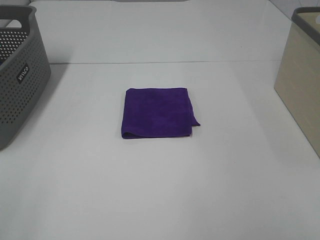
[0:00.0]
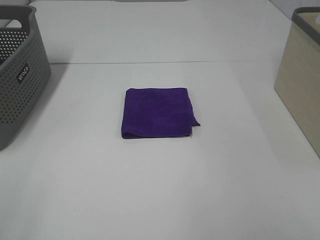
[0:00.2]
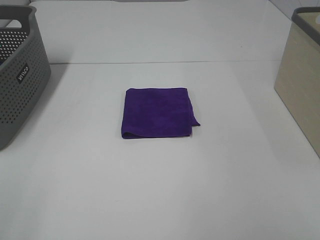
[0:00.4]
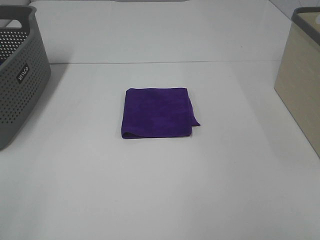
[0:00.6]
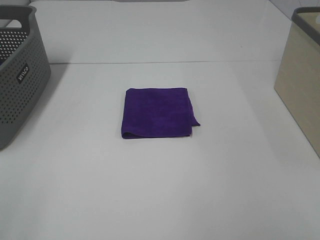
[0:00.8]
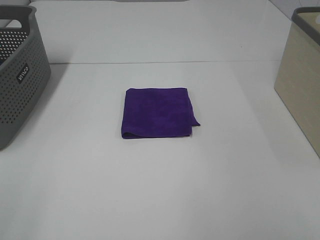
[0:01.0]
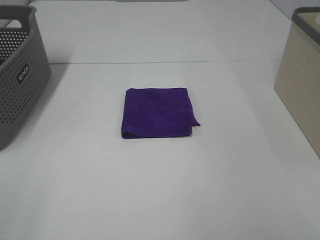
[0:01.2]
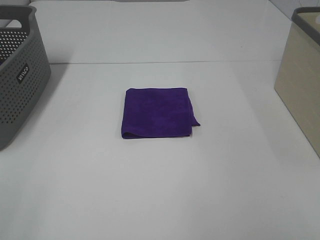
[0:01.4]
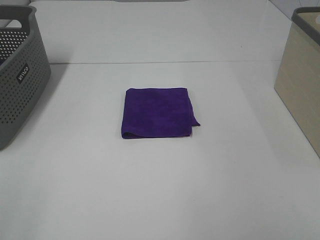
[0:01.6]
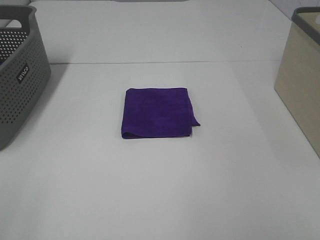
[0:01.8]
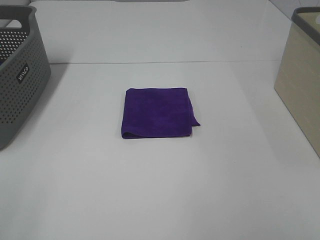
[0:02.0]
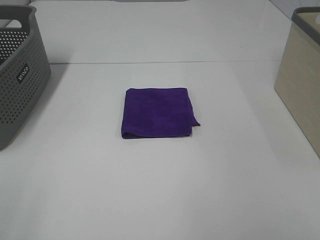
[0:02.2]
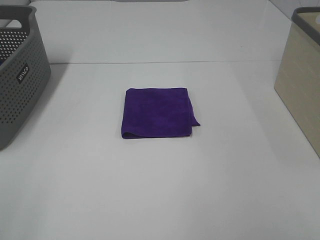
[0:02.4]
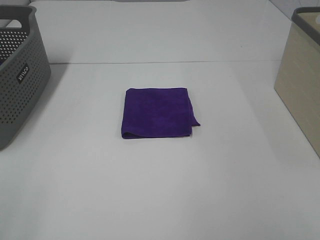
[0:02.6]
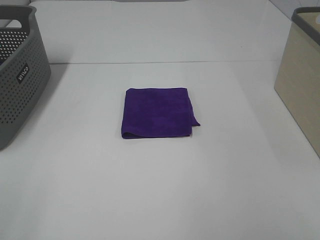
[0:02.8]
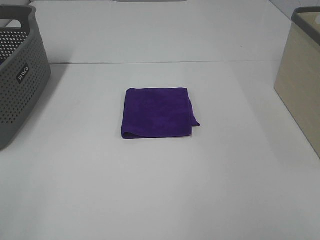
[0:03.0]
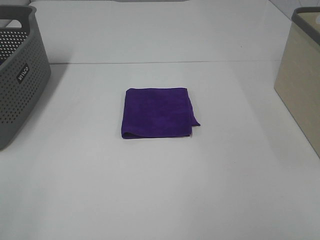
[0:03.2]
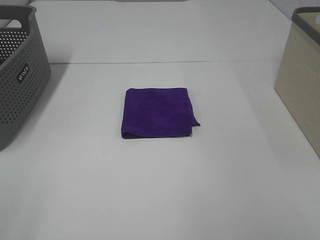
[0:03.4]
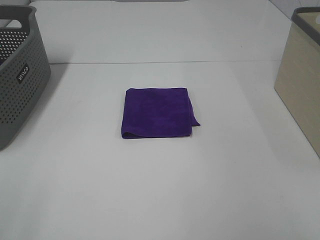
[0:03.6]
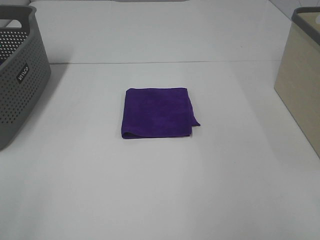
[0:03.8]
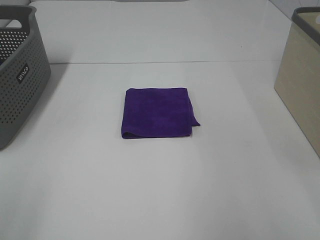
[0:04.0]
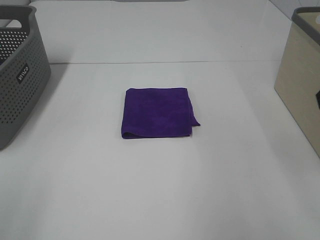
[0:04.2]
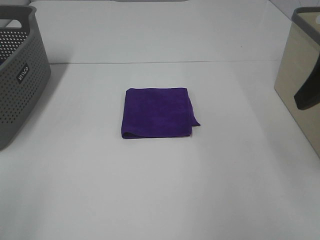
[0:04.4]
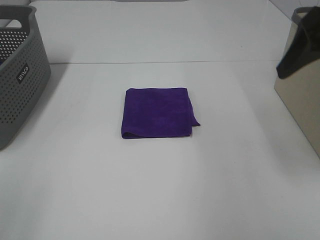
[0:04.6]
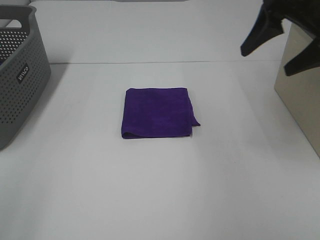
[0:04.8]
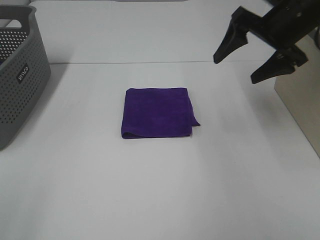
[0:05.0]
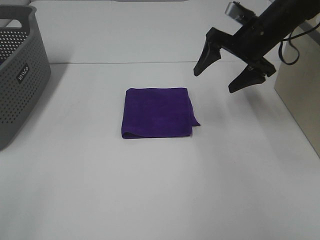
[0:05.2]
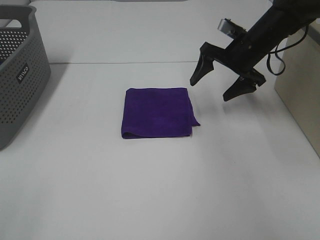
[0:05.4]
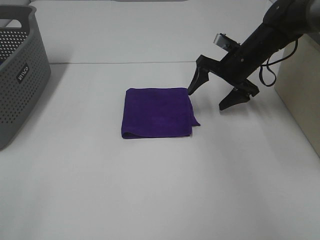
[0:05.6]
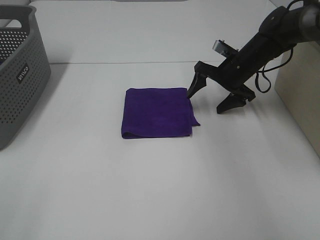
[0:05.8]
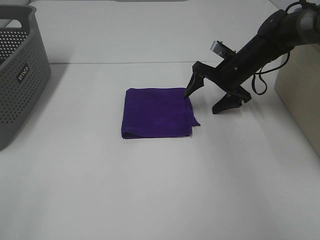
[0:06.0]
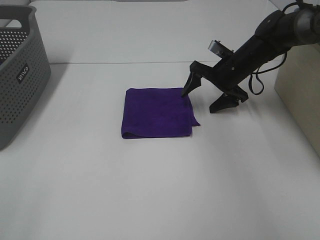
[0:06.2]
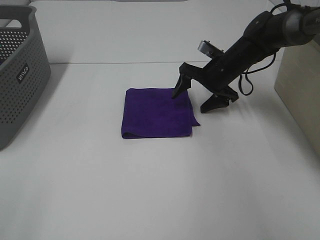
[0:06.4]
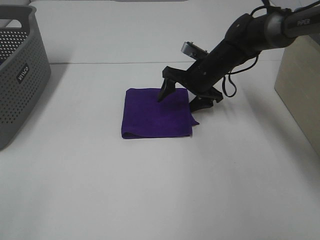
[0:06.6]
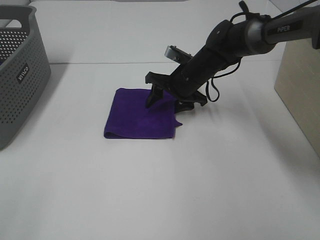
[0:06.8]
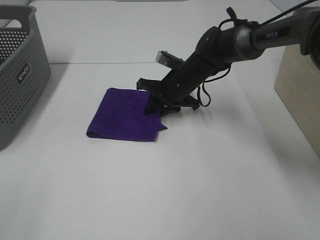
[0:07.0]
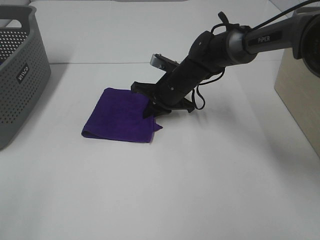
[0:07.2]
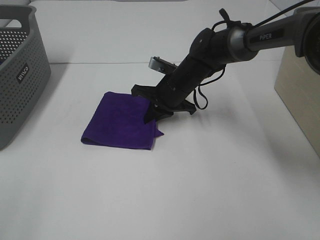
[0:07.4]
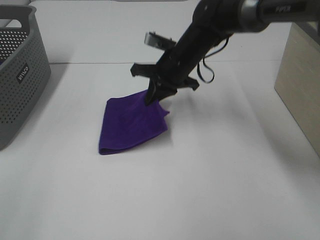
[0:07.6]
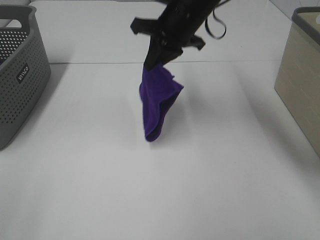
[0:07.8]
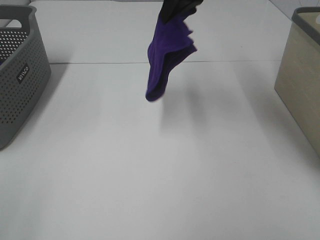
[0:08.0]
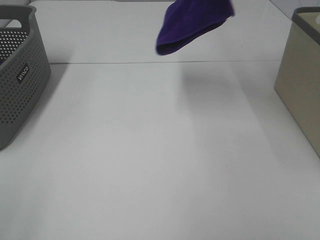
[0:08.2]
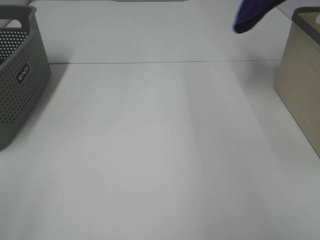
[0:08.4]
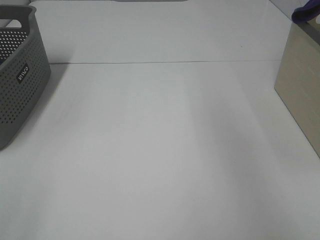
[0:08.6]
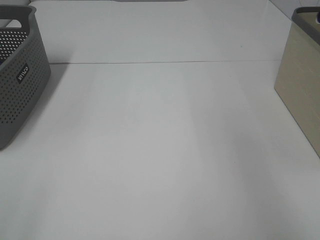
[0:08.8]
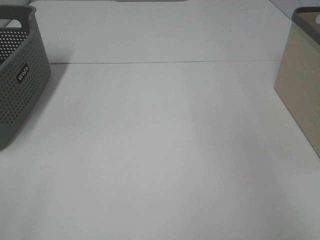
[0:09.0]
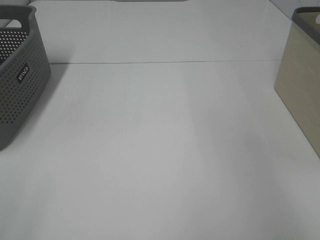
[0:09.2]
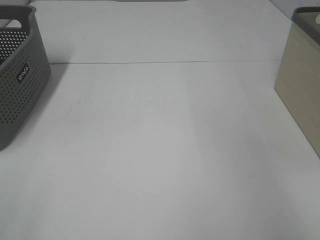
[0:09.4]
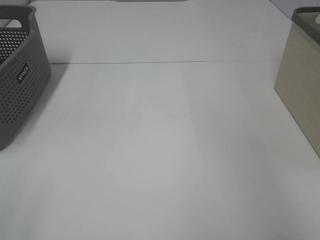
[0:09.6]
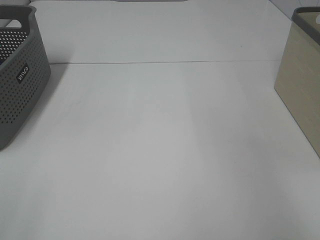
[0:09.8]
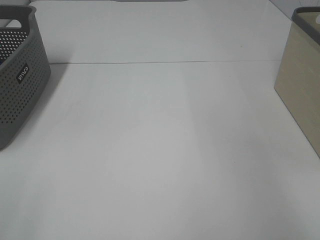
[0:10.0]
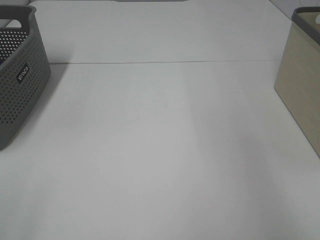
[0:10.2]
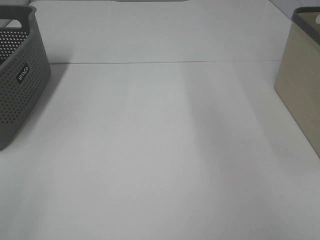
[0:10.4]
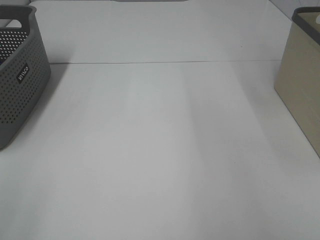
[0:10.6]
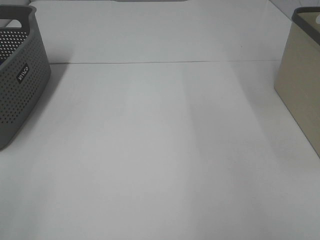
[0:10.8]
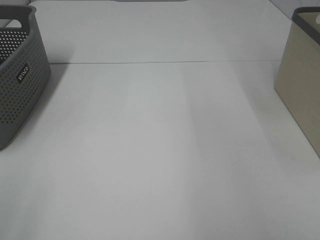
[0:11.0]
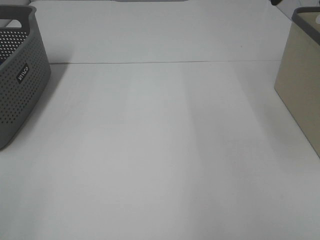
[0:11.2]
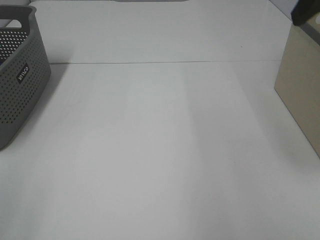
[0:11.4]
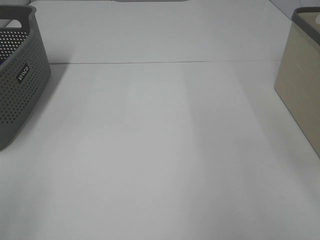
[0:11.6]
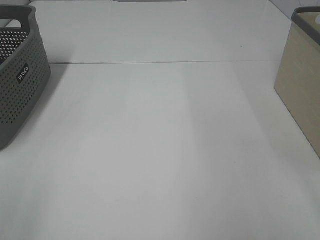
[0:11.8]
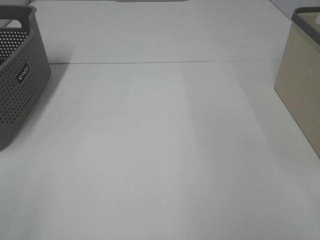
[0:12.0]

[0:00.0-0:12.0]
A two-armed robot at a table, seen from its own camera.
Step, 0:00.0 to 0:07.2: Right hand: grab the folded purple towel.
Step, 0:07.4 to 0:09.8: Right hand: place the purple towel in right basket.
0:00.0 to 0:03.0: Neither gripper changes place.
0:03.0 to 0:04.4: The right gripper goes about 20 cm forward.
0:04.4 to 0:06.0: The right gripper shifts roughly 35 cm forward and downward.
0:06.0 to 0:07.6: The right gripper moves to the left and upward, about 15 cm, and closes up.
0:07.6 to 0:09.0: The right gripper is displaced to the right and upward by about 50 cm.

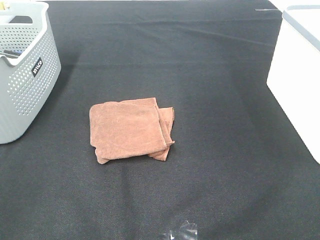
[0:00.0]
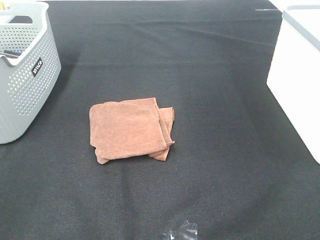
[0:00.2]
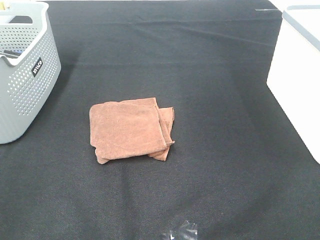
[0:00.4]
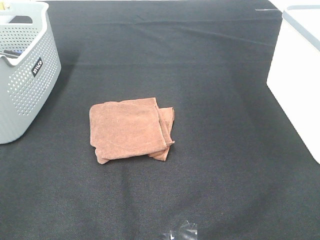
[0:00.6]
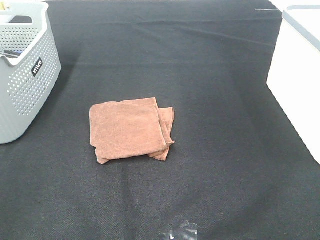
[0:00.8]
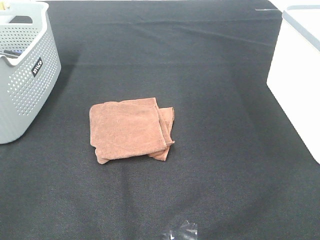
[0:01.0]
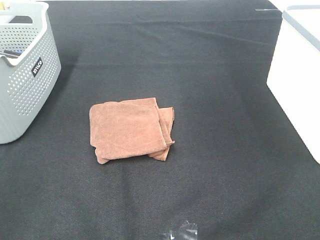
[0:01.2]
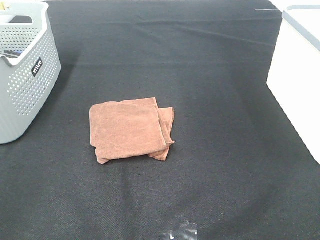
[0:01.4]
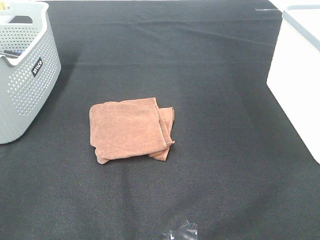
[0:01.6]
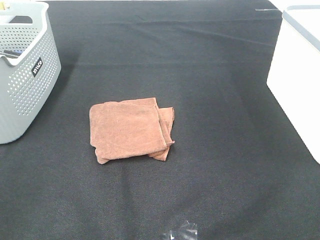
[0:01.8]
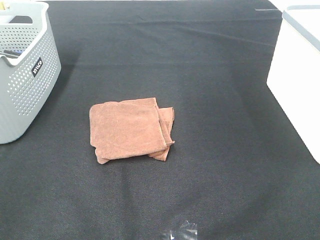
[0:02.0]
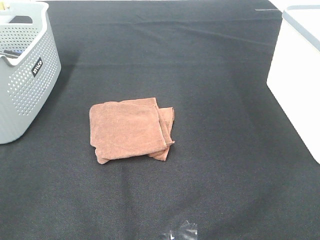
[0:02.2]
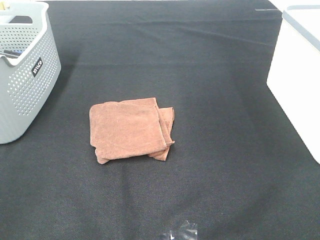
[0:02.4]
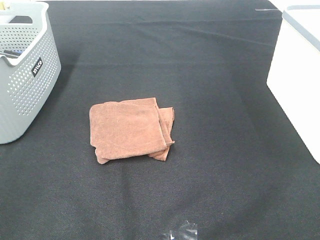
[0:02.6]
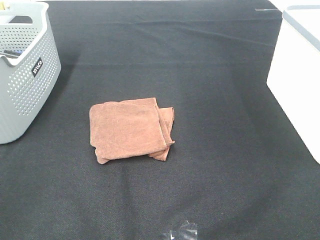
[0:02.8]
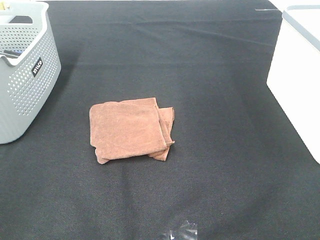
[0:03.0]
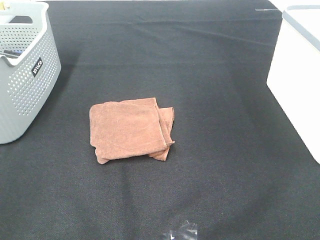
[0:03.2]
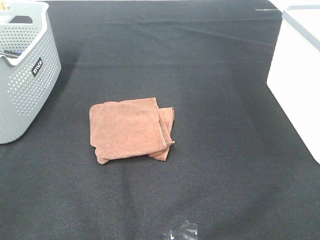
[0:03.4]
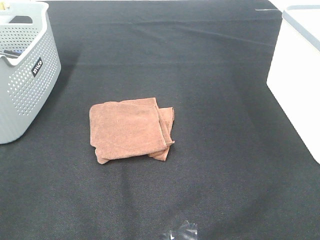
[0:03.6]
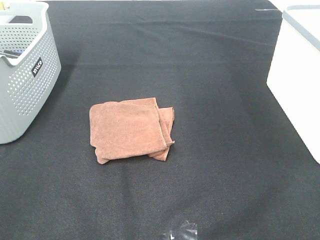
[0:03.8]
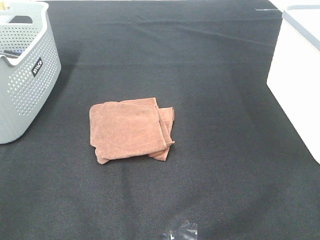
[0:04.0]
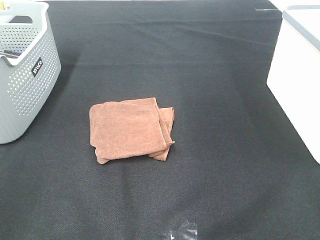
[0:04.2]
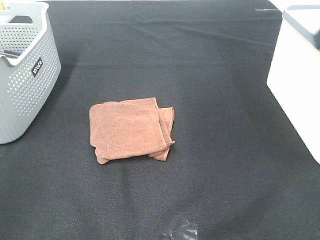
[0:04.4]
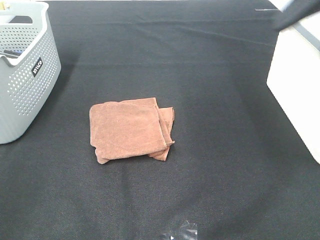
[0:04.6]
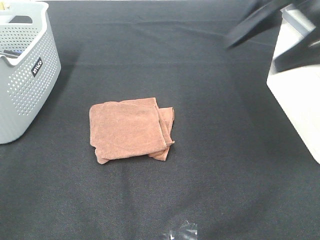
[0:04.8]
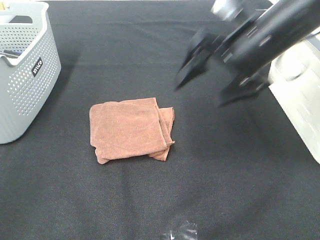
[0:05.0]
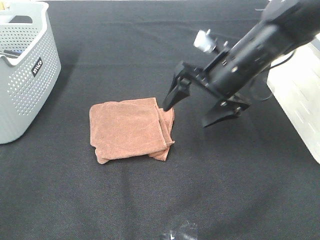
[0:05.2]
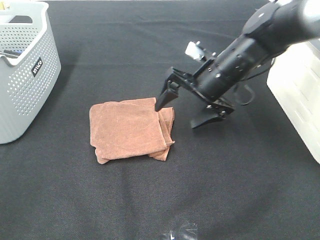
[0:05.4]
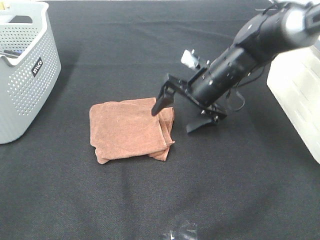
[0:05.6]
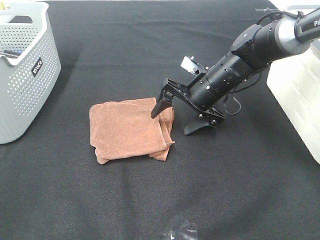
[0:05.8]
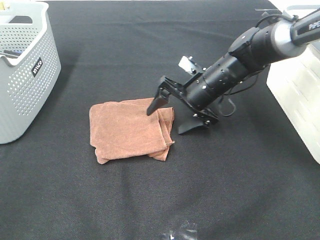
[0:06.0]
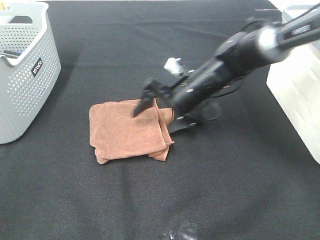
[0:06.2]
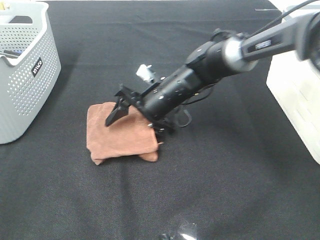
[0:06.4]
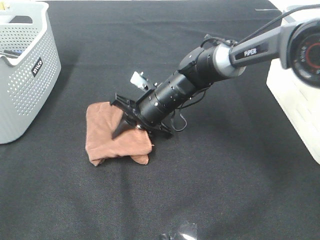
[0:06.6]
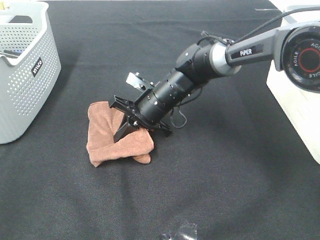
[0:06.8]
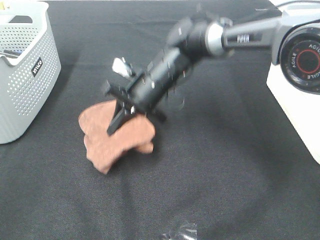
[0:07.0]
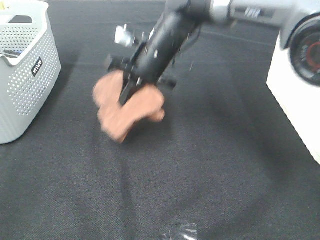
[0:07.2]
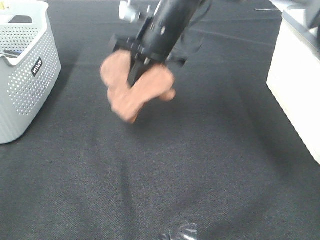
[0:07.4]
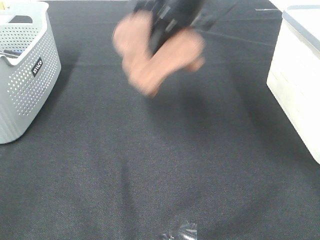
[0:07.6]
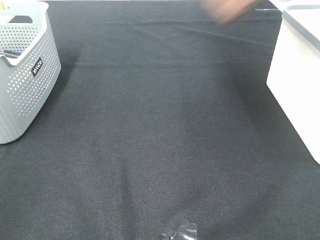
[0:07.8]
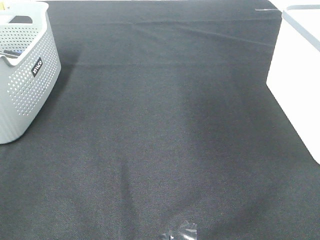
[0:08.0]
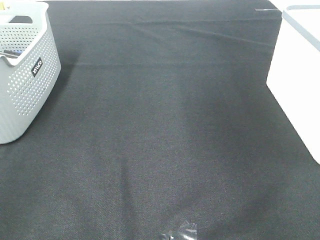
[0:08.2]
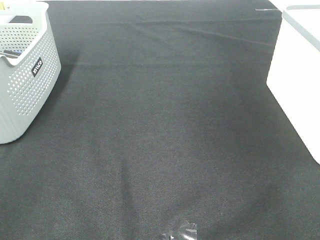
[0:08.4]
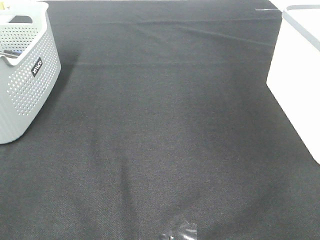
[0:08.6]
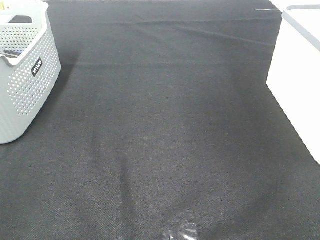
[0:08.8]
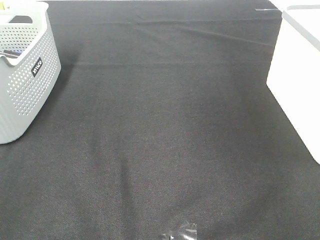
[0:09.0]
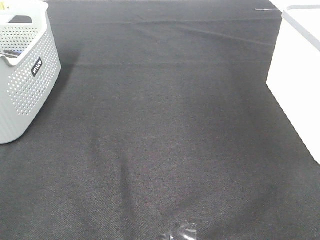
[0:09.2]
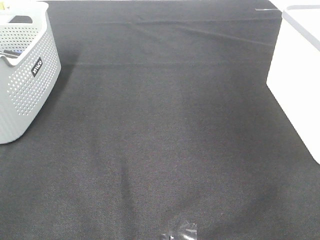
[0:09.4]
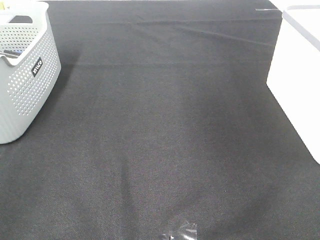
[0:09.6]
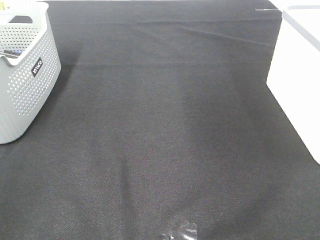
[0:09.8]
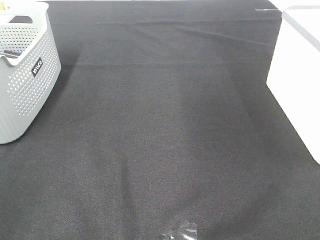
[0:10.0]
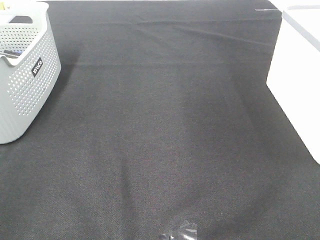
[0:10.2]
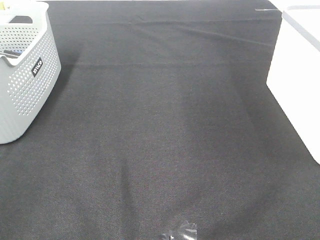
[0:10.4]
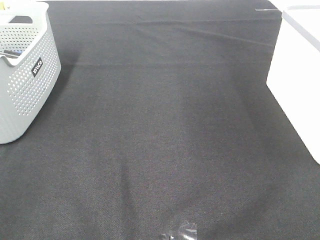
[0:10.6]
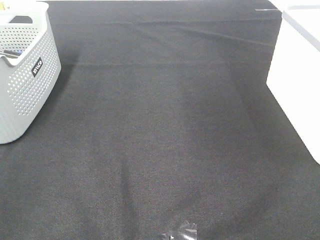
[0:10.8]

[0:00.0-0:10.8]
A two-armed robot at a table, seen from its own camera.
Step, 0:00.0 to 0:06.6: Right hand: grab the folded brown towel.
Step, 0:06.8 to 0:09.2: Right hand: place the brown towel in right basket.
0:00.0 to 0:03.0: The two grippers keep their place.
0:03.0 to 0:04.6: The right gripper is displaced forward by roughly 25 cm.
0:04.6 to 0:06.2: The right gripper is displaced downward, to the left and forward by some 35 cm.
0:06.2 to 0:07.8: The right gripper moves upward and to the right, about 40 cm, and closes its fingers.
0:07.8 to 0:09.2: The right gripper travels to the right by approximately 20 cm, and opens up.
